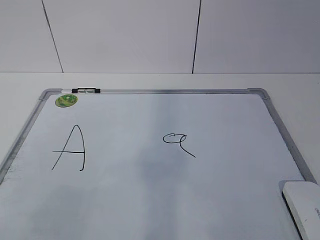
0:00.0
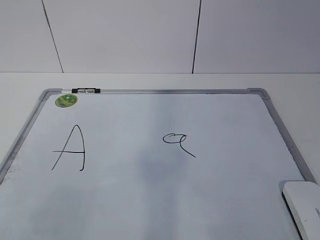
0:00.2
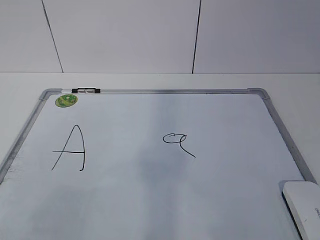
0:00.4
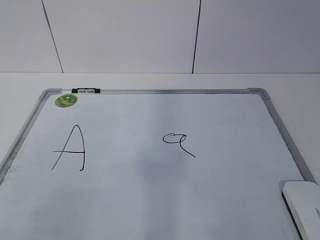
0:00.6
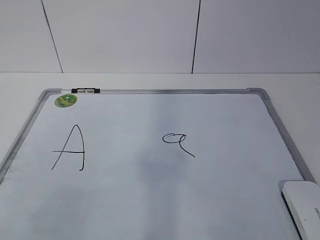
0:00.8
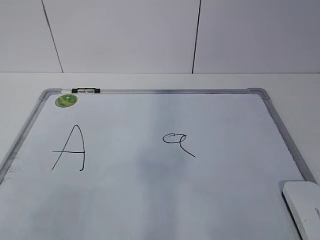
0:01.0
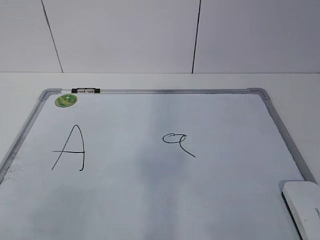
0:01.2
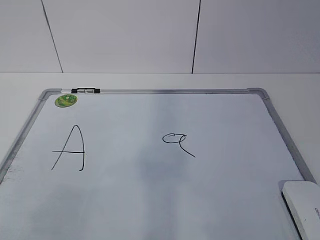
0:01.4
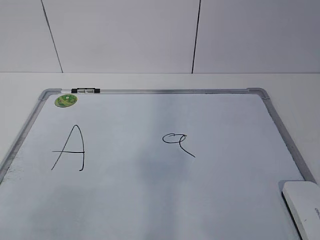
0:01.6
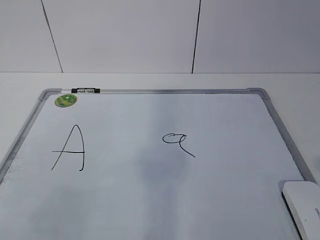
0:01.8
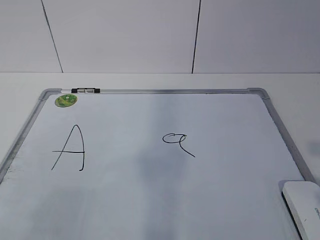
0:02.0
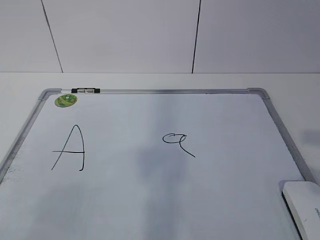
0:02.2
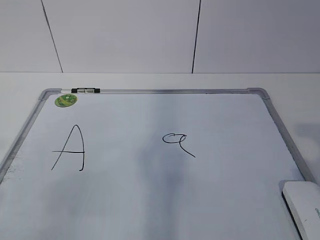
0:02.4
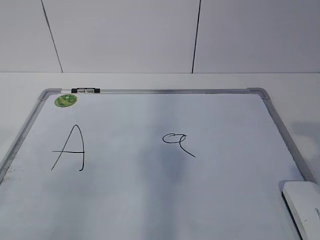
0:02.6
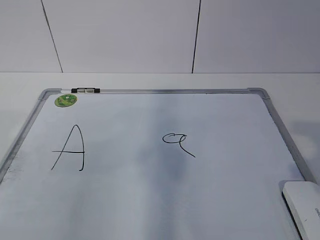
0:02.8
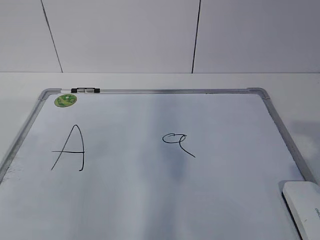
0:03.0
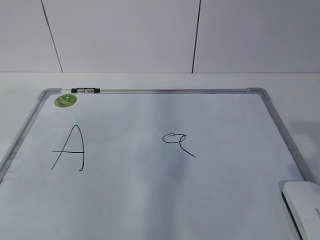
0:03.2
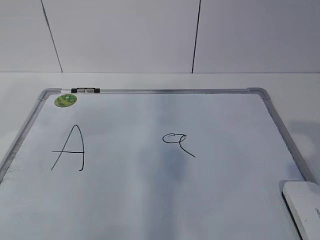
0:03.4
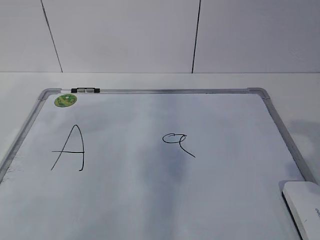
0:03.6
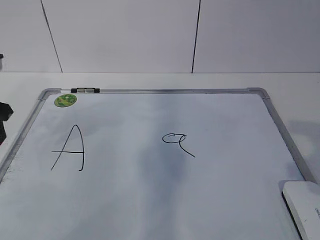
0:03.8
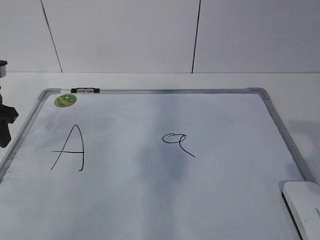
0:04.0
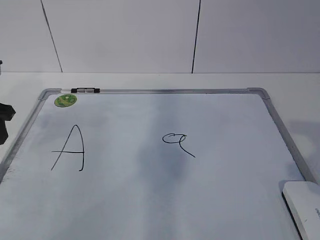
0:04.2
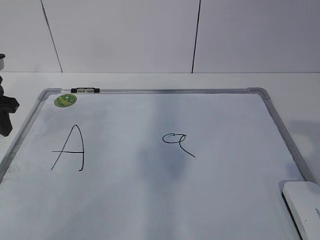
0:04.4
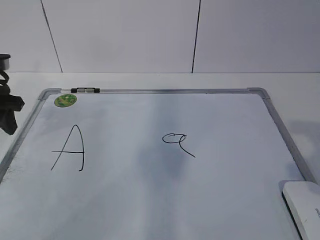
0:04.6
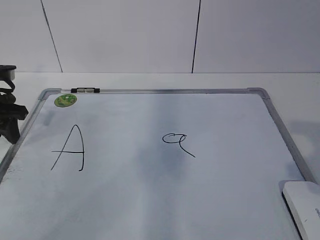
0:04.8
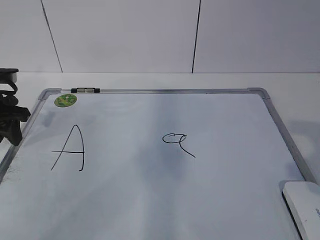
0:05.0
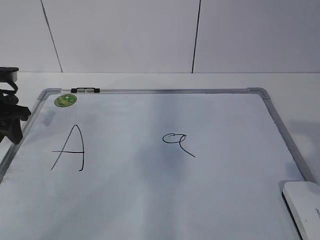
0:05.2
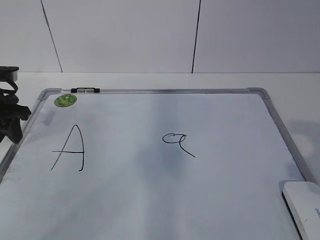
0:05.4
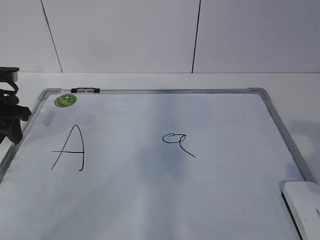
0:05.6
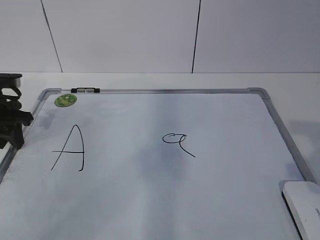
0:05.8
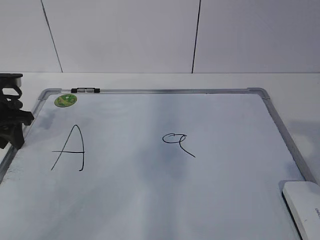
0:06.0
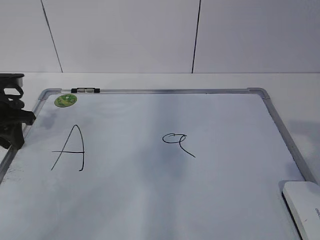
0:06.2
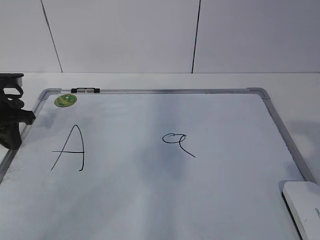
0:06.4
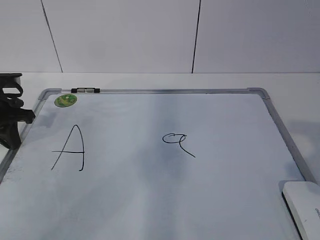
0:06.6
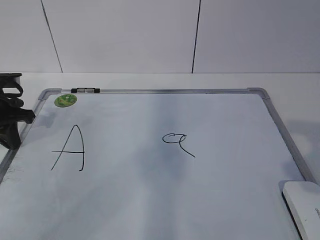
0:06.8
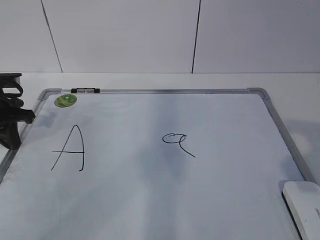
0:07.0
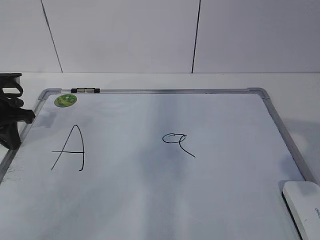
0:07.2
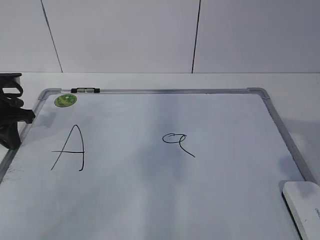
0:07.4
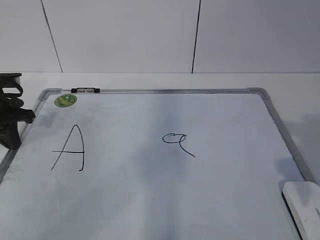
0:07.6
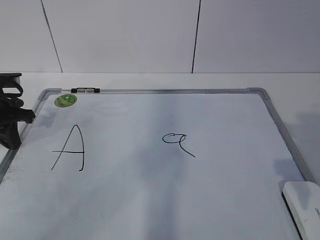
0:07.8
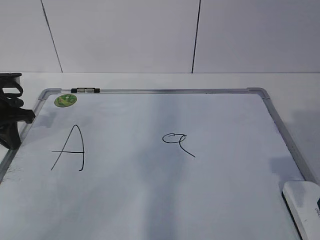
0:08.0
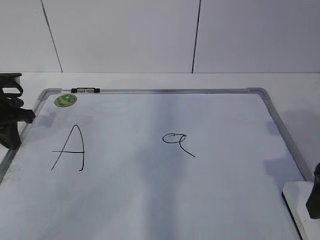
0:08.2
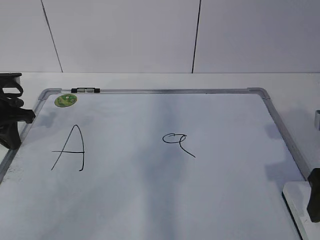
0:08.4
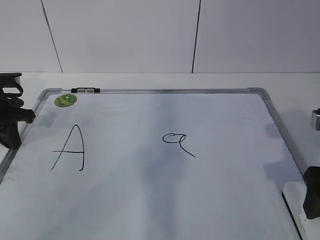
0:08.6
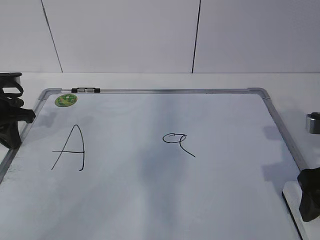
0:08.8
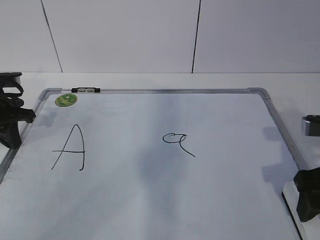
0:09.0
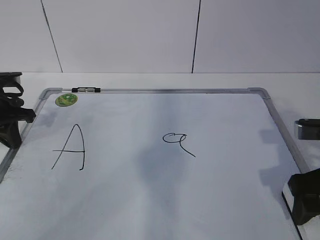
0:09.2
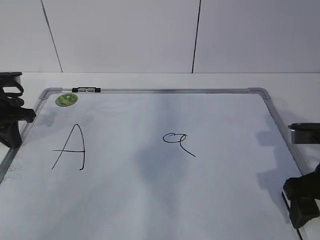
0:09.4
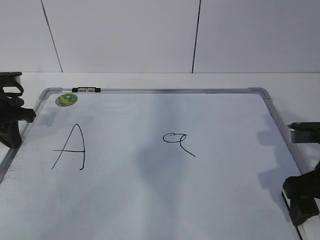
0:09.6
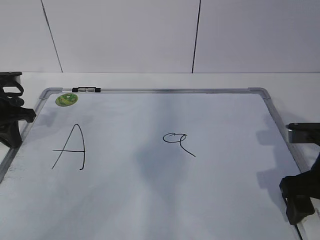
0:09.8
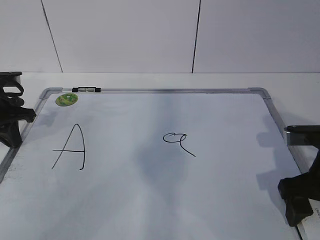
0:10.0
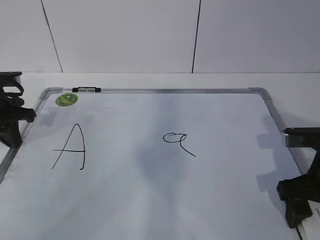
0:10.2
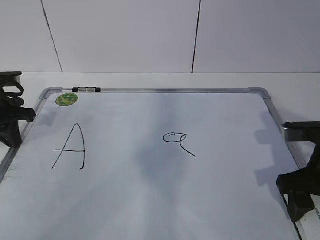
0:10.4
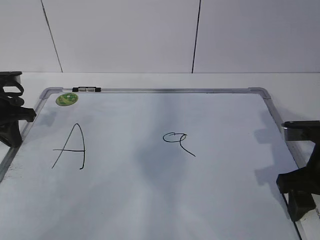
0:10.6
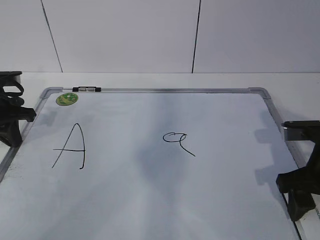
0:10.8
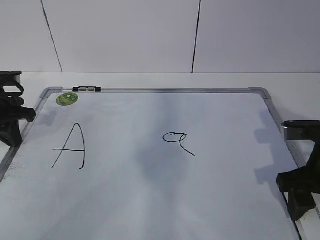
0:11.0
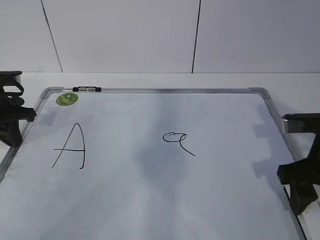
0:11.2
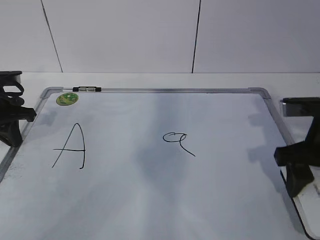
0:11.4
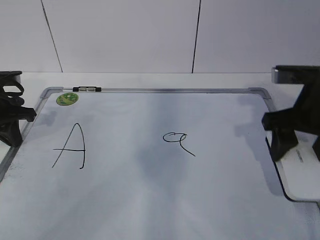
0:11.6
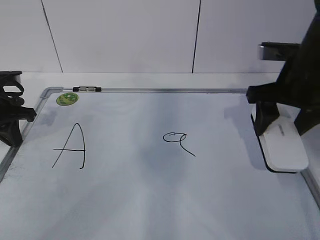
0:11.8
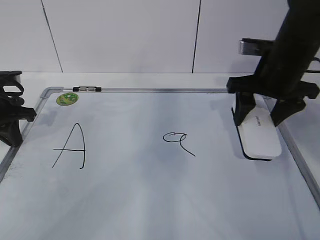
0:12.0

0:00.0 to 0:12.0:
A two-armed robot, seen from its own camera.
Task of the whole recording: pick up the eraser on the blackboard and erase the letter "a".
Step, 0:00.0 to 0:05.4: Hold the drawing board steady with your left hand.
Step, 0:05.6 to 0:08.6: Grab the eraser with your right hand.
0:03.0 to 0:04.4: The left gripper heads forward and downward, covering roughly 20 cm.
0:04.4 to 0:06.0: The left gripper is displaced downward by roughly 5 cm.
0:06.0 to 0:07.6: The left gripper closes.
0:07.6 to 0:09.0: The right gripper goes some 10 cm downward and forward.
0:09.0 to 0:10.4: The right gripper closes.
0:10.4 to 0:12.0: The right gripper heads forward and upward, covering some 15 cm, and closes its fingers.

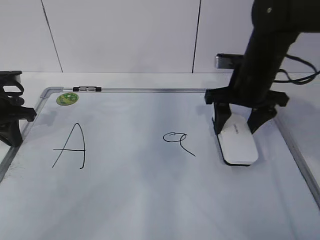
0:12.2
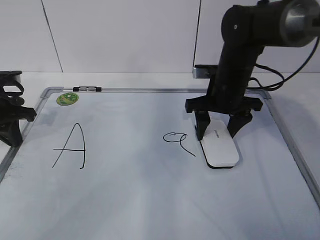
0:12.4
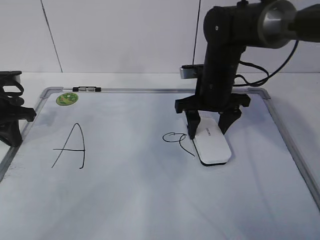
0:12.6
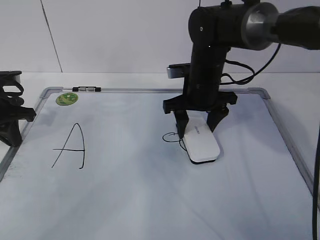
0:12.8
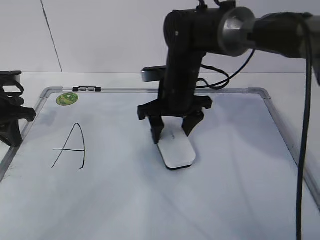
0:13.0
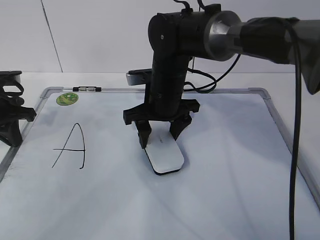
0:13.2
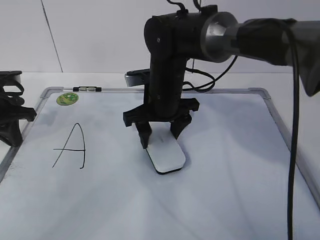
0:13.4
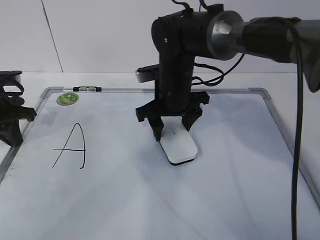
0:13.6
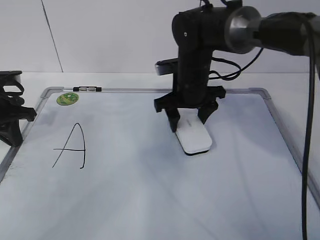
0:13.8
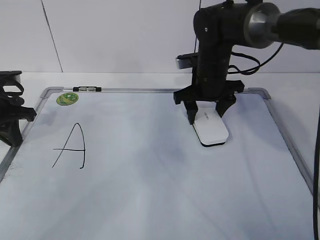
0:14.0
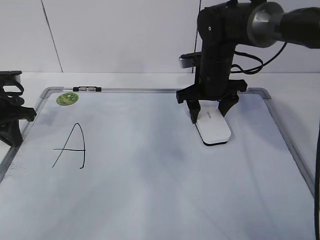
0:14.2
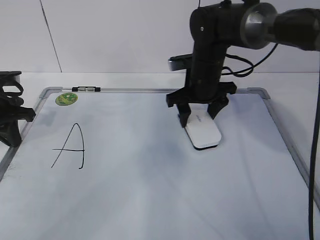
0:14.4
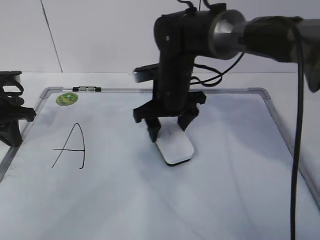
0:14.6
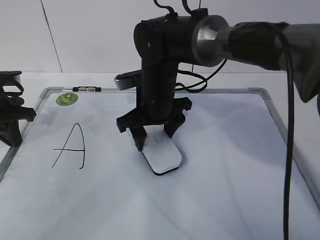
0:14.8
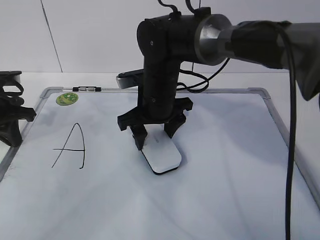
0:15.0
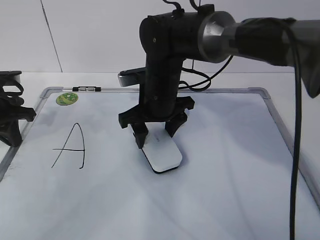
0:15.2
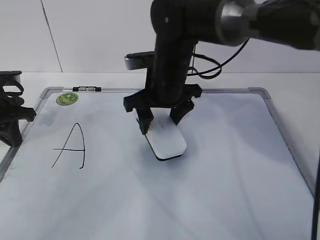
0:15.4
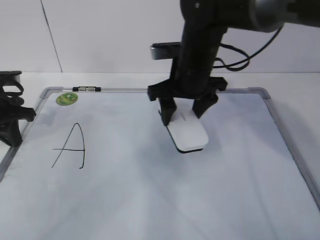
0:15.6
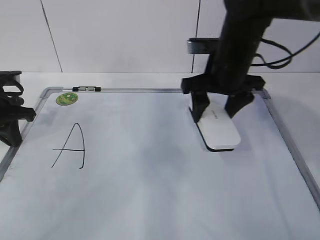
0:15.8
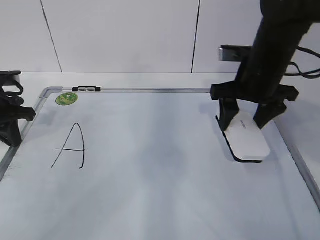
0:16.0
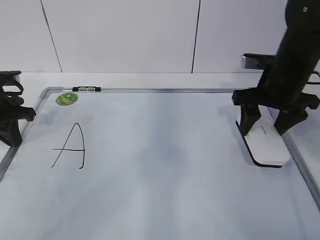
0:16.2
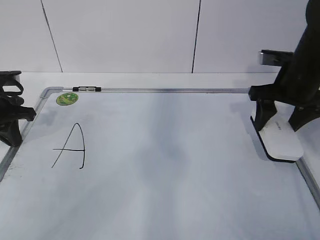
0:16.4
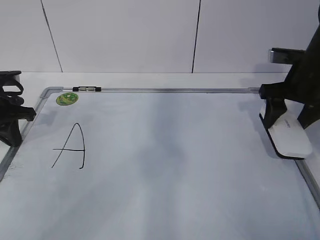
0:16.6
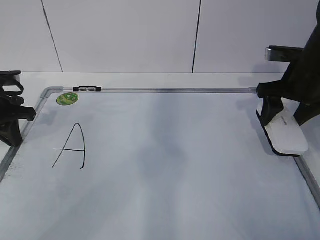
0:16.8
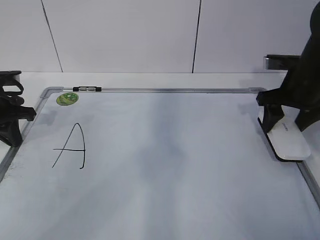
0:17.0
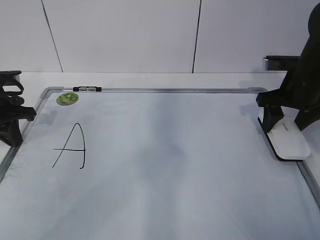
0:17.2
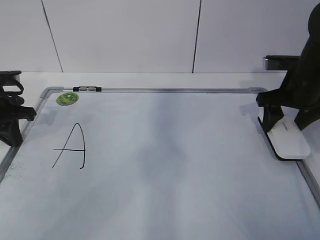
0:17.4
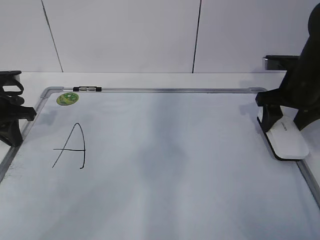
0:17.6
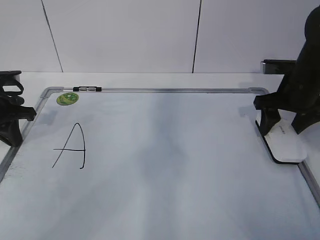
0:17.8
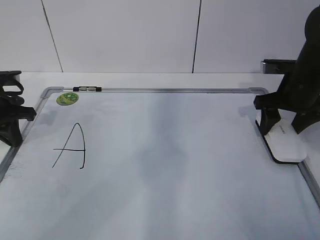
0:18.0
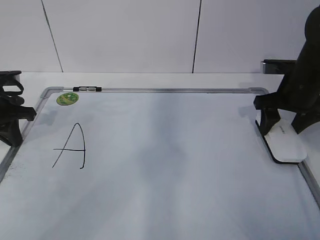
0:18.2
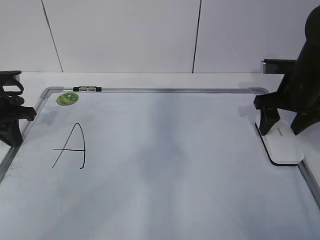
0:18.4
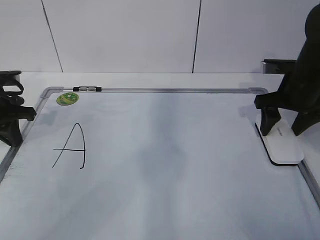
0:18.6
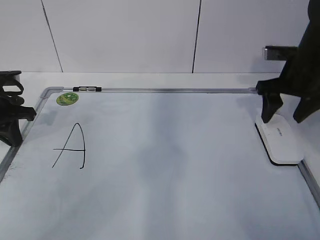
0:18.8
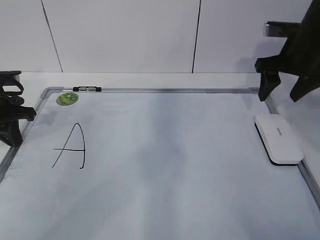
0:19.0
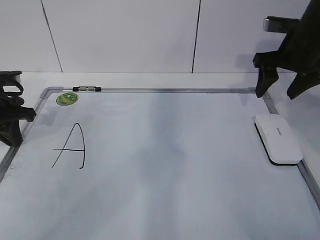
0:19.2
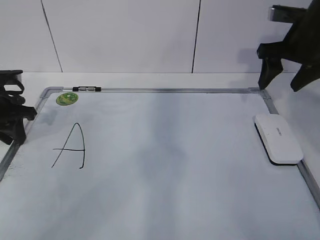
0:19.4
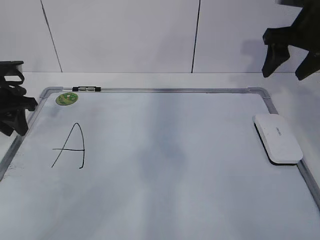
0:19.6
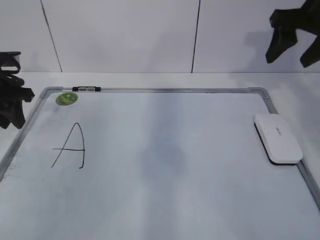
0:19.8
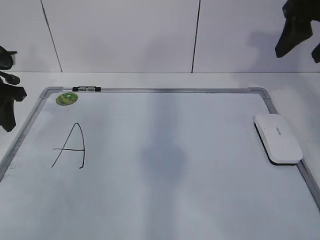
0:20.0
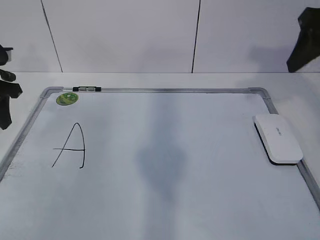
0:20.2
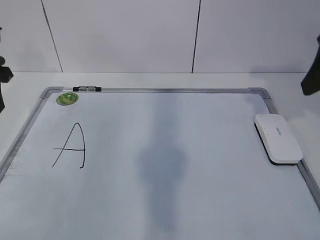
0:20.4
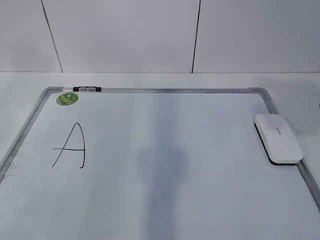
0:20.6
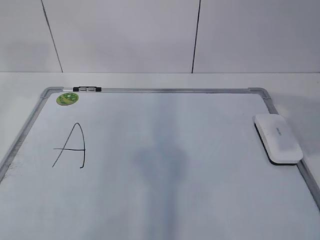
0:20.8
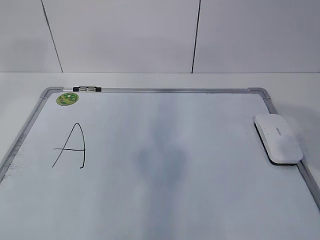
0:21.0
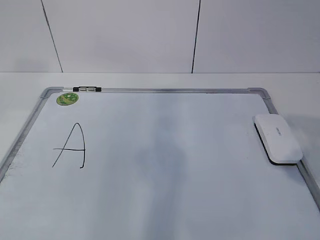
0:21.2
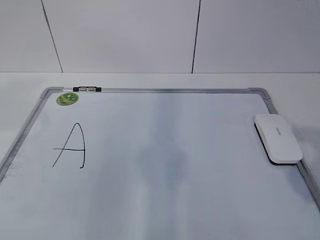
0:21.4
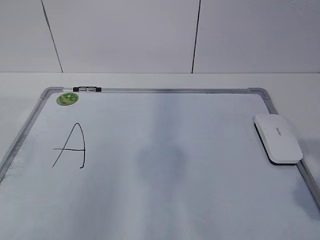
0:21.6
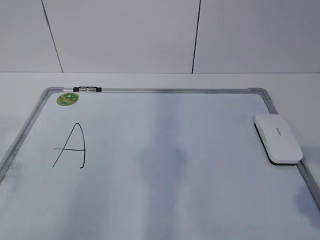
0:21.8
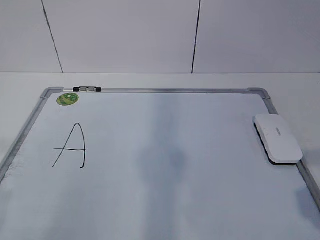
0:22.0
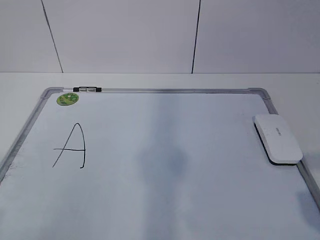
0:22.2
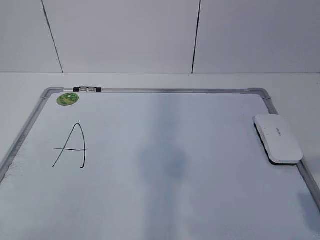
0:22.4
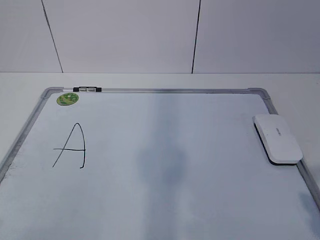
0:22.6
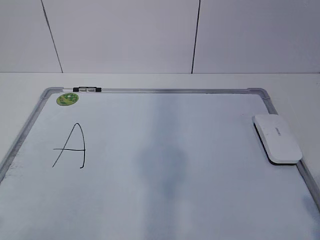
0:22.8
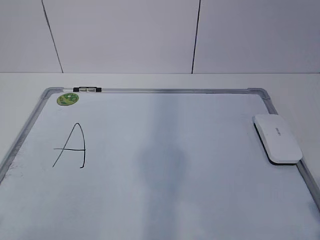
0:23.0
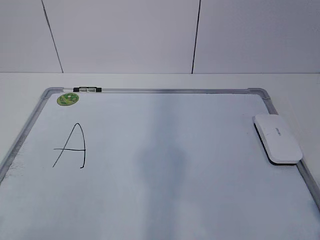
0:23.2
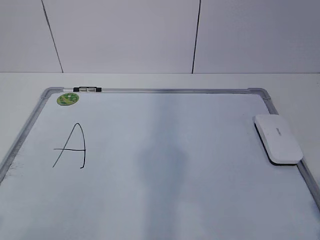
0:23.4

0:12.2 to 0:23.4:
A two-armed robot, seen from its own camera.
Task of the whole recording: pick up the eraser on the blackboard and erase the letter "a".
Step, 0:12.6 to 0:15.2: Put down the eraser with your right hand.
0:12.2 to 0:13.8: The right gripper moves to the left, roughly 10 cm.
0:13.8 to 0:15.4: The right gripper changes place by roughly 5 cm.
0:15.4 to 0:17.0: The right gripper moves to the right, about 25 cm.
0:17.0 to 0:18.6: The grippers make only small movements.
0:18.6 to 0:20.2: The right gripper moves upward and backward, approximately 20 cm. The left gripper is displaced upward by roughly 5 cm, and opens its fingers.
0:20.2 to 0:21.8: The two grippers go approximately 30 cm backward.
